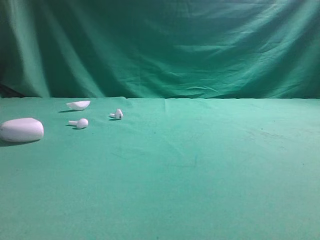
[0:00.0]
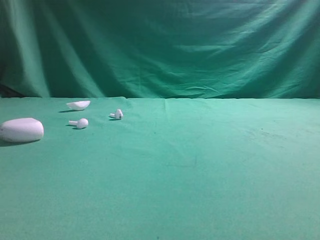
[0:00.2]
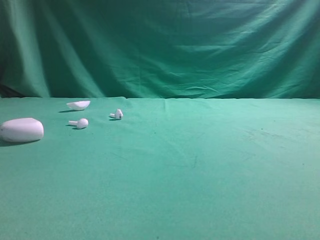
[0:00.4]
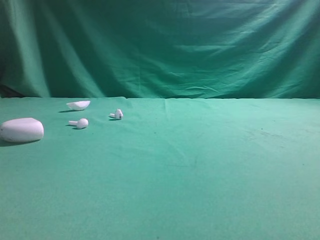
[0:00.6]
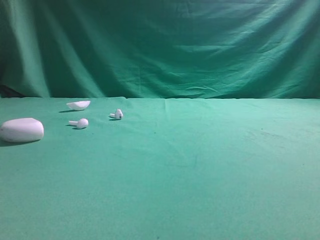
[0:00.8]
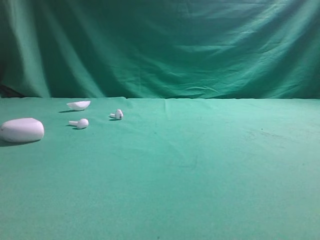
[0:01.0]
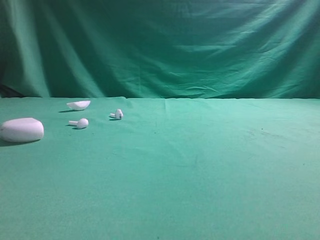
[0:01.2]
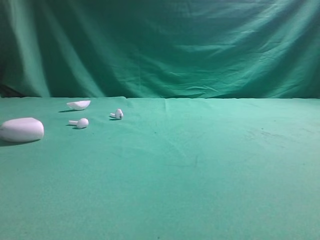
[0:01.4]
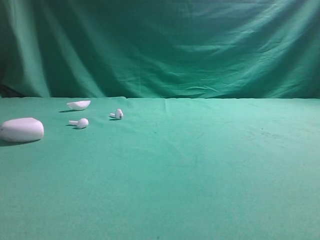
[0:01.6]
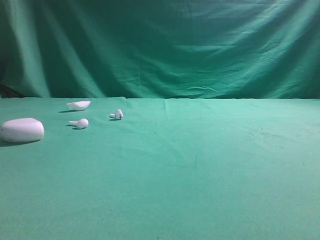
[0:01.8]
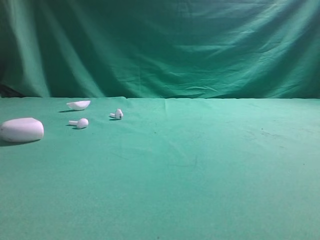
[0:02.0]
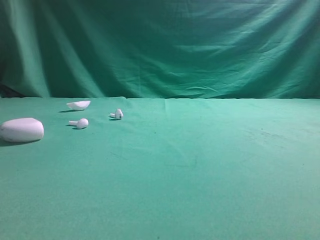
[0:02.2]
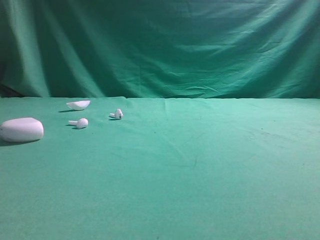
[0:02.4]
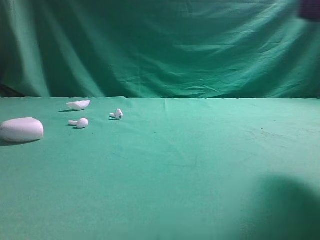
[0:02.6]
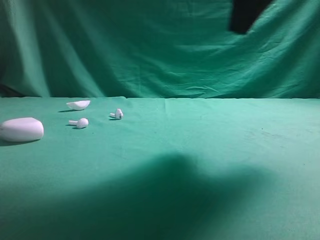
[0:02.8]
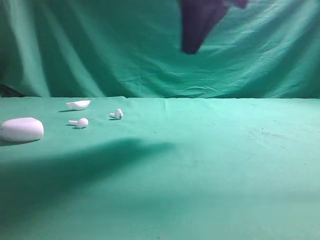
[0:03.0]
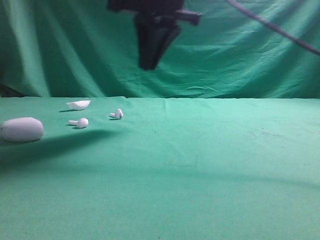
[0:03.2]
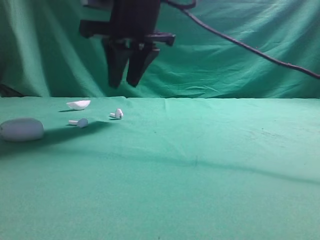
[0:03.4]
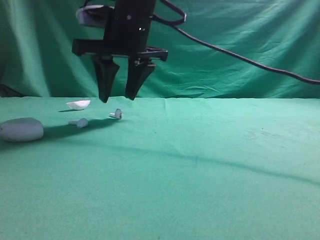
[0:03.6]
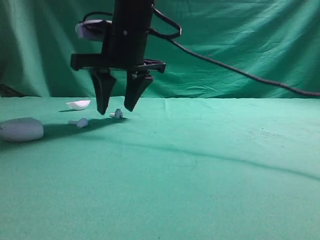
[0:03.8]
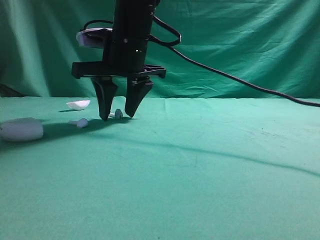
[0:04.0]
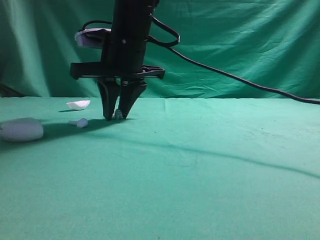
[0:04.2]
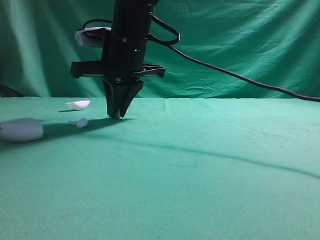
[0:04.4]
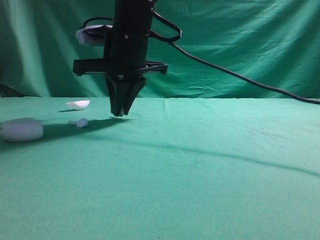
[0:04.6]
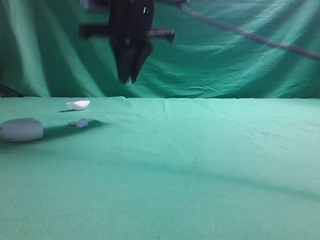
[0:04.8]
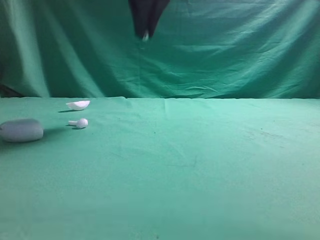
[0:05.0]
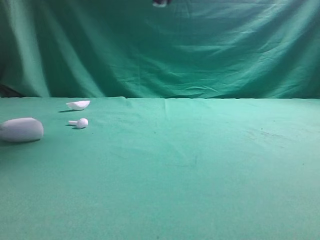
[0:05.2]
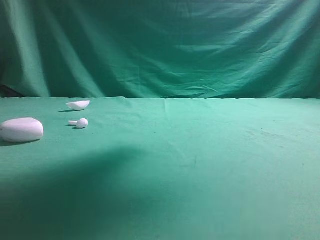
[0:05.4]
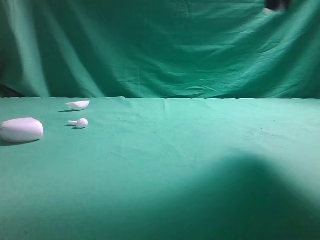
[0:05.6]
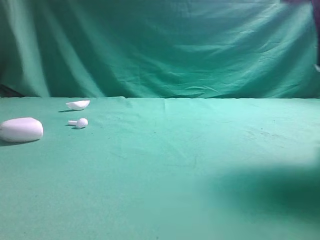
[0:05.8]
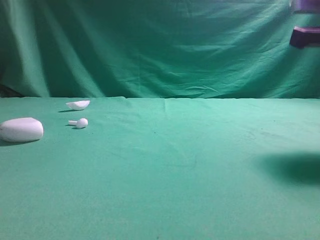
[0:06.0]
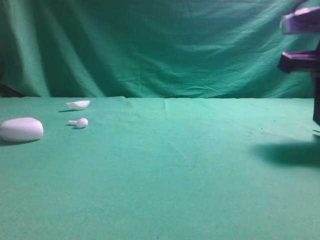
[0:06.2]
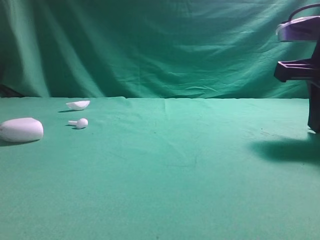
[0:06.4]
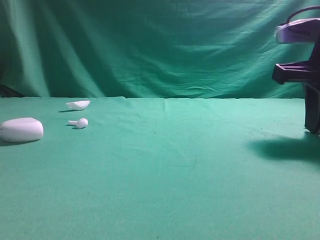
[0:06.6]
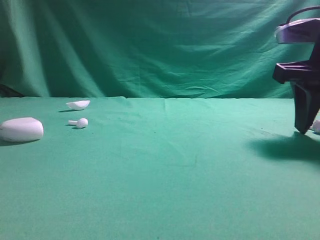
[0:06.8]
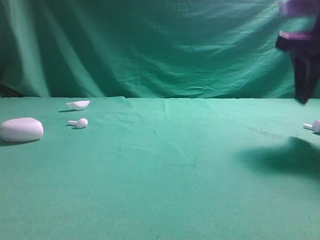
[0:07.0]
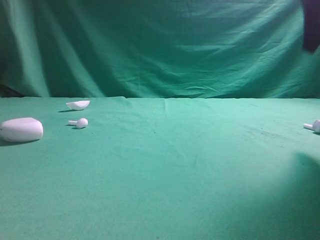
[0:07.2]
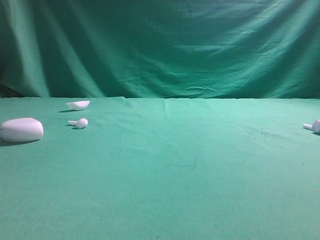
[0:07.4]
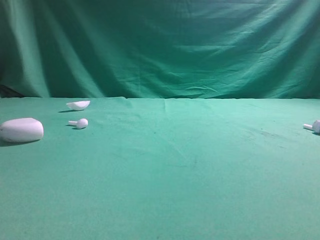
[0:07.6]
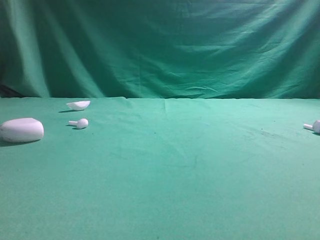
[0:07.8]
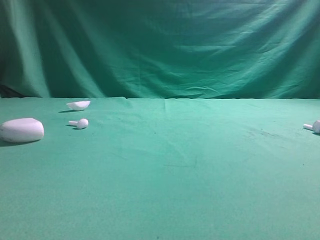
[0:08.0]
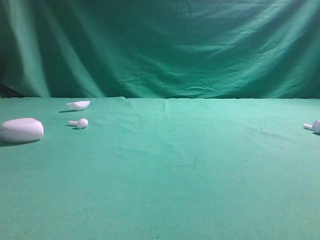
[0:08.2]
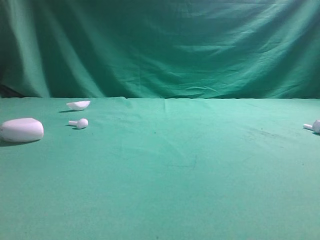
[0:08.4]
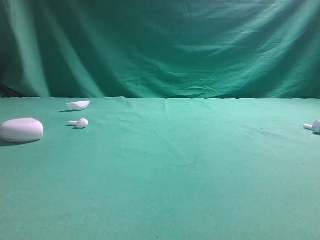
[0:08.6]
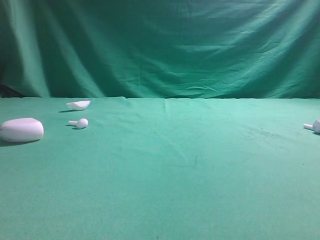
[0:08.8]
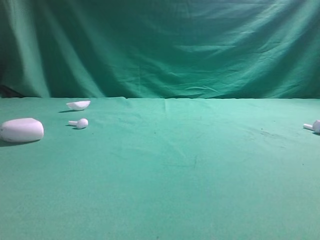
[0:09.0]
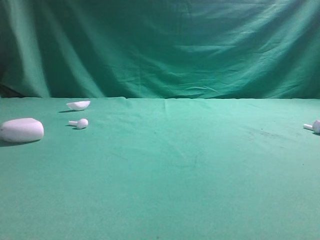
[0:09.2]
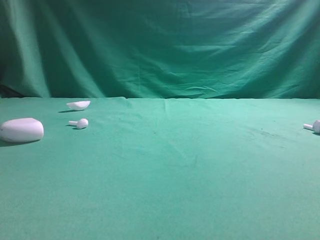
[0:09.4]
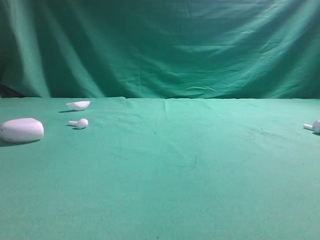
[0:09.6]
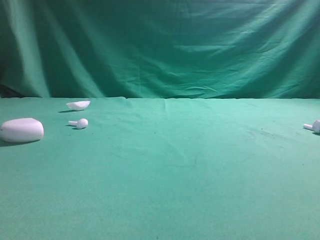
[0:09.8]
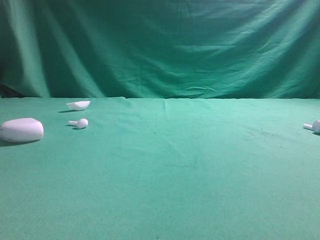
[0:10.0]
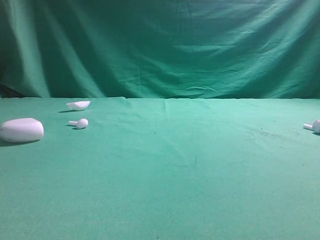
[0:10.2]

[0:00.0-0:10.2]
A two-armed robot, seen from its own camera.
Step, 0:00.0 to 0:04.8: Grasp the Bluetooth earbud.
Step, 0:05.0 to 0:07.2: Place bluetooth earbud on the right side of the table.
